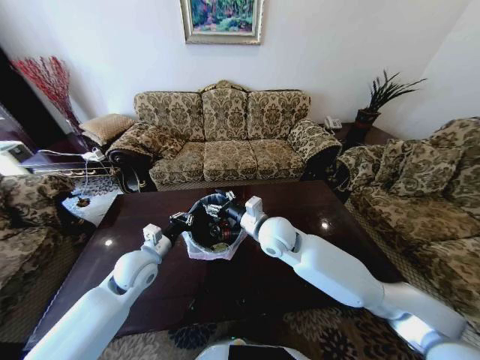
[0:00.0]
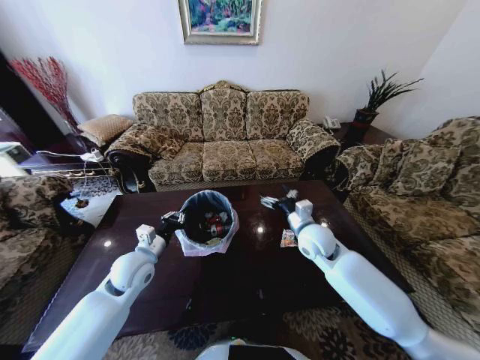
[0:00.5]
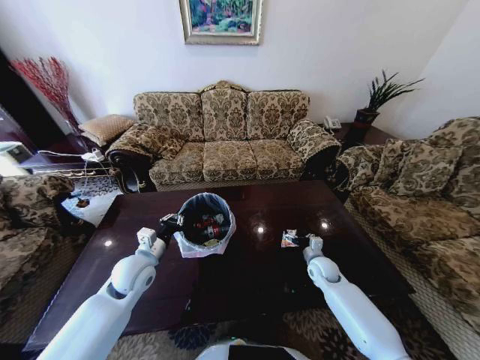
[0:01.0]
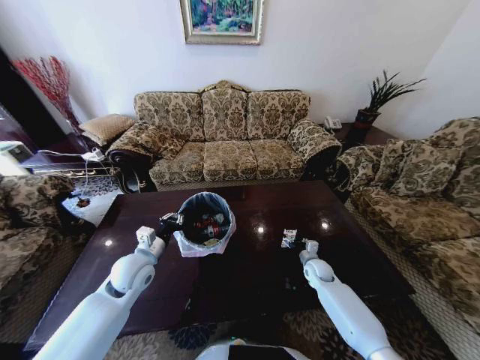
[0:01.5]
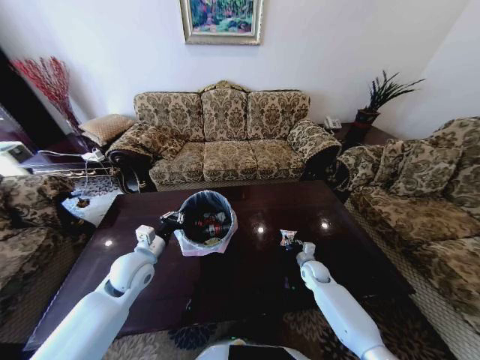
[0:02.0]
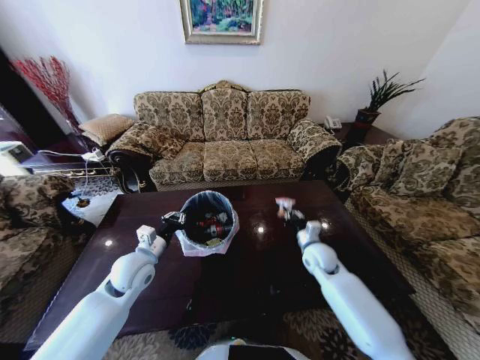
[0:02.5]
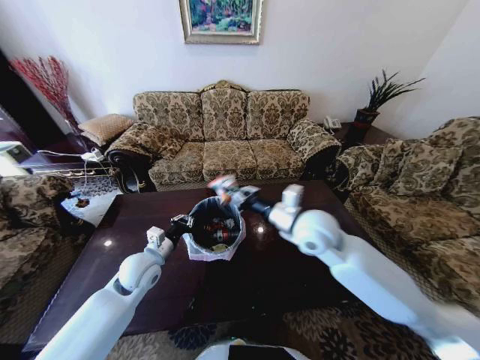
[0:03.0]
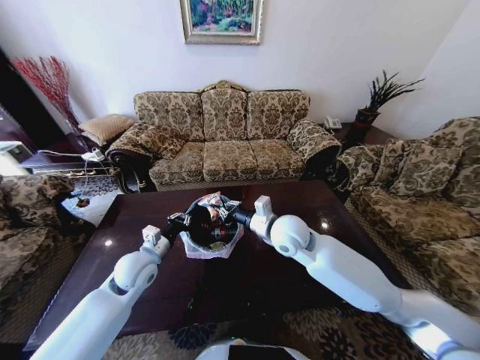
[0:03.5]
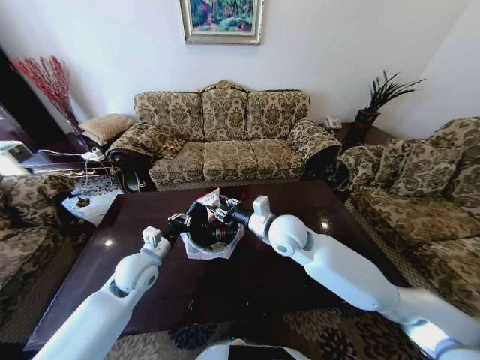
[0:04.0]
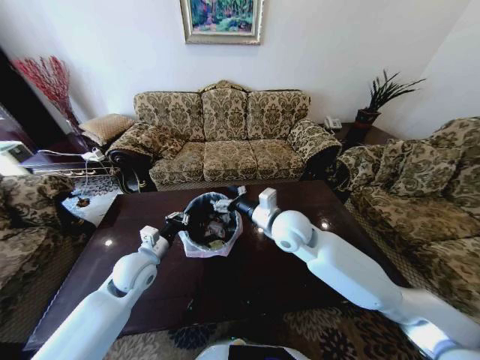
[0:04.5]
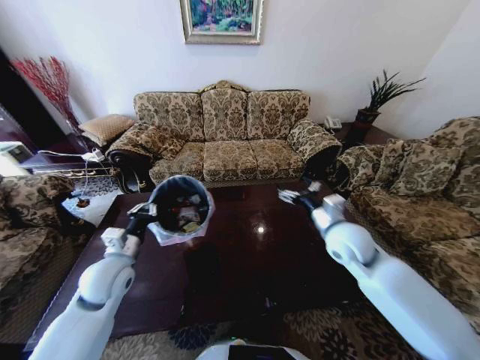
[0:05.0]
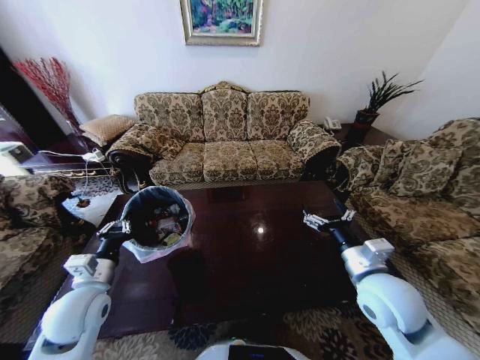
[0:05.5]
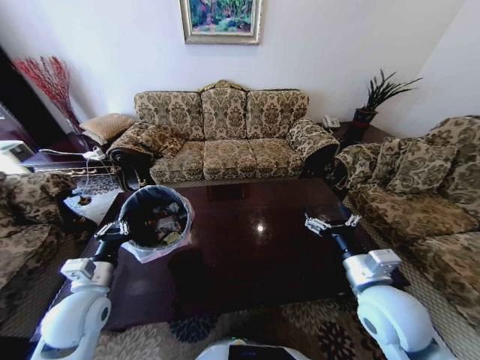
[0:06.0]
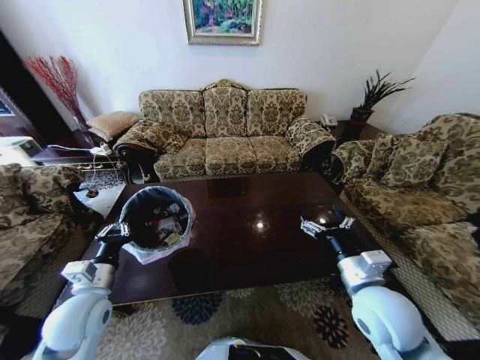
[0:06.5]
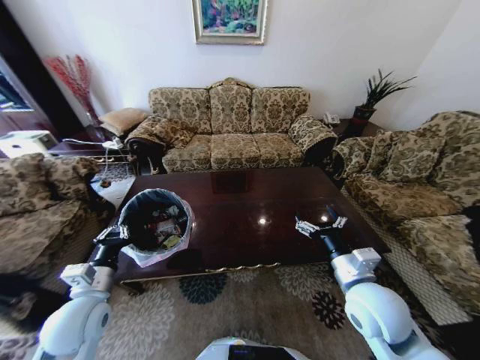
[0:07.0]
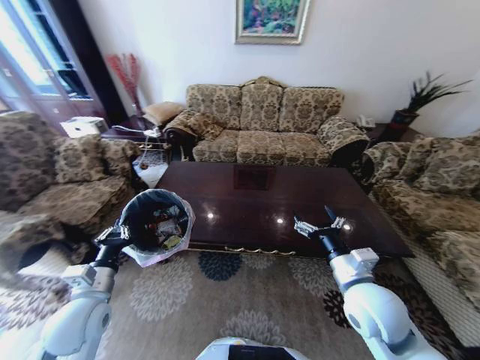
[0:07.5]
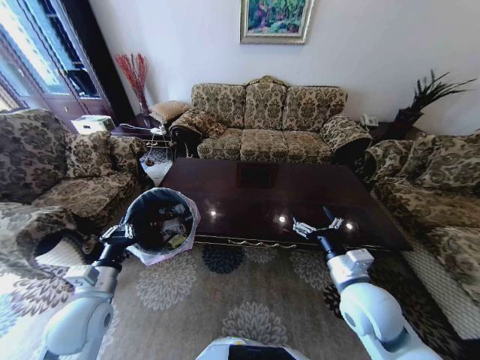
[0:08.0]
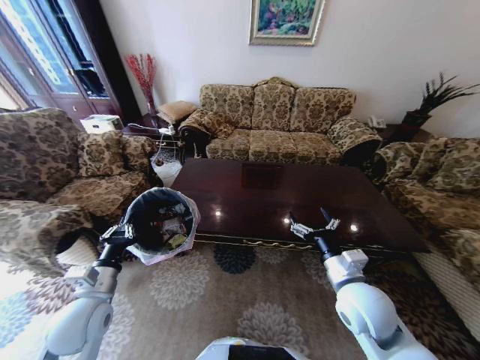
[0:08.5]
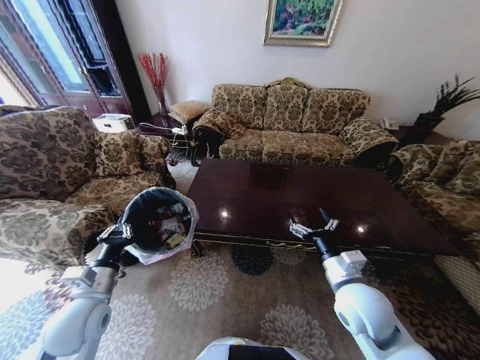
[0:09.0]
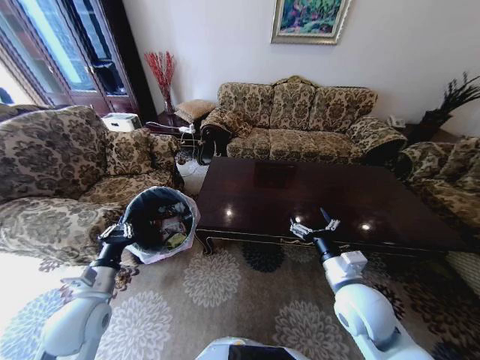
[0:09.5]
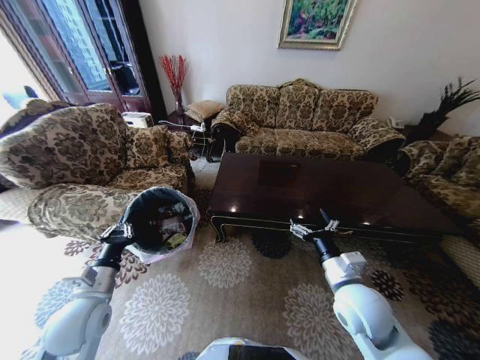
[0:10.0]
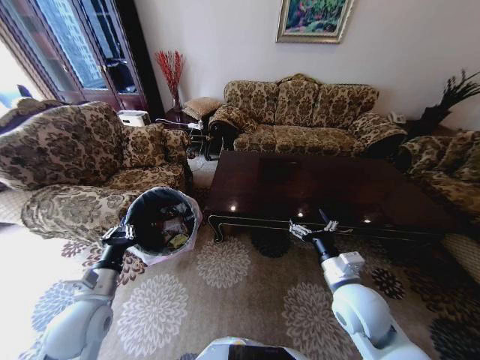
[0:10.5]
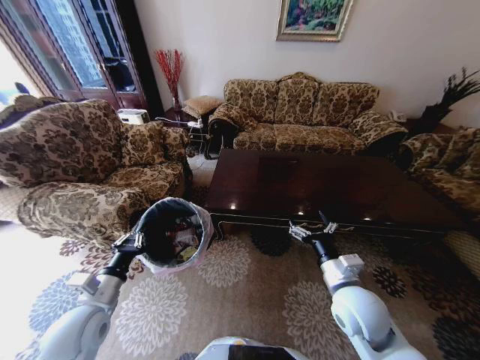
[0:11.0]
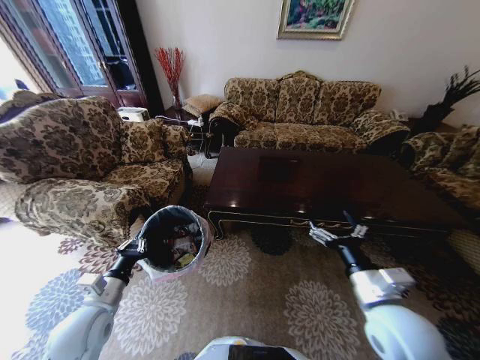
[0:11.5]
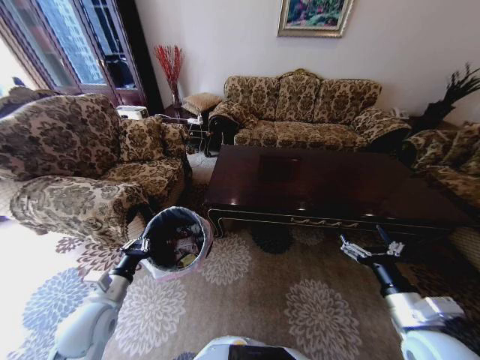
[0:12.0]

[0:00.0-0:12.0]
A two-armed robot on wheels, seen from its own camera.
Task of the whole recording: Move to the front of the table and place the trash on the table into the trash bin.
0:00.0 to 0:02.0: The right gripper moves downward and to the right, about 35 cm, and closes its fingers.
0:02.0 to 0:04.0: The right gripper shifts approximately 35 cm upward and to the left.
0:04.0 to 0:06.0: The right gripper is displaced to the right and backward by approximately 25 cm, and opens. The left gripper goes roughly 10 cm backward and to the left.
0:10.0 to 0:12.0: The right gripper is displaced to the right and backward by roughly 15 cm.

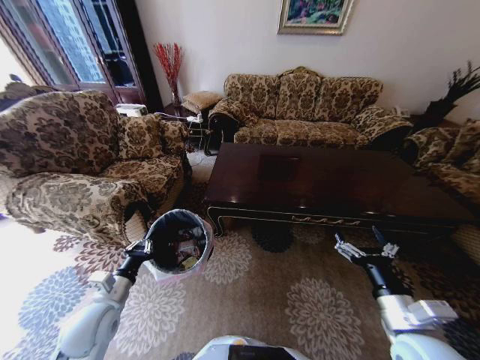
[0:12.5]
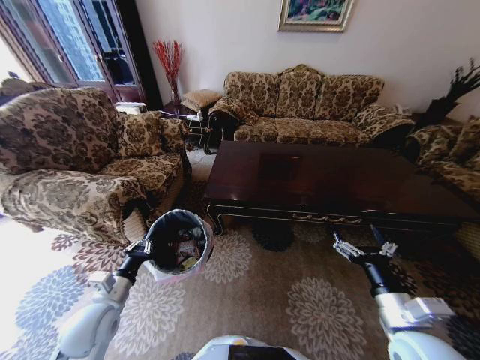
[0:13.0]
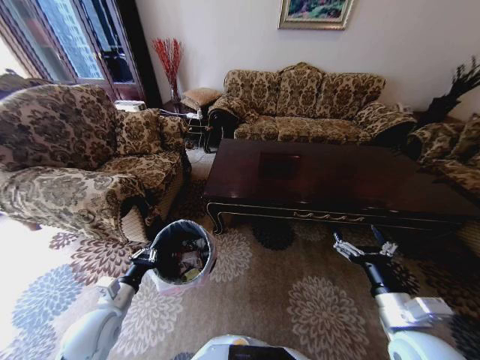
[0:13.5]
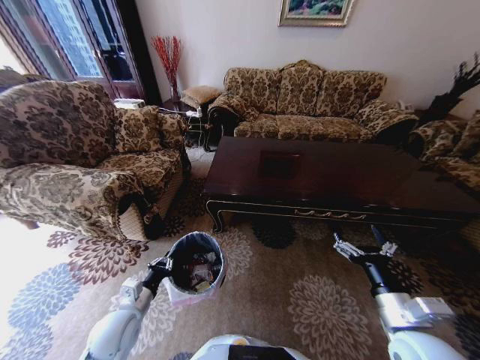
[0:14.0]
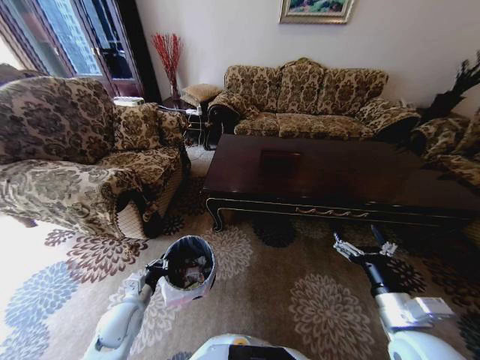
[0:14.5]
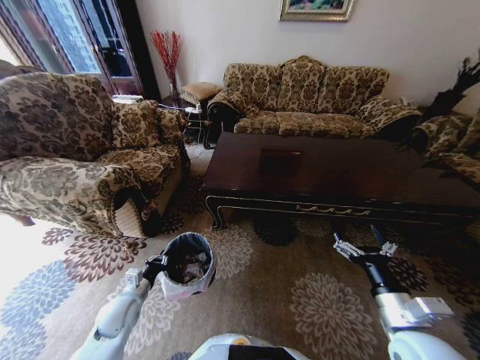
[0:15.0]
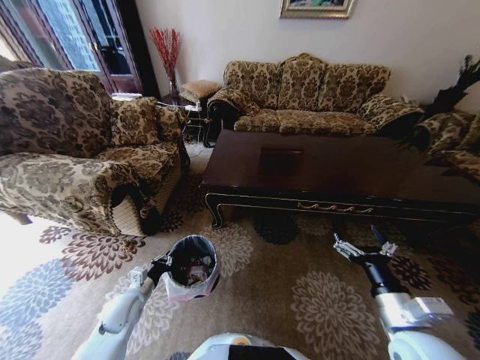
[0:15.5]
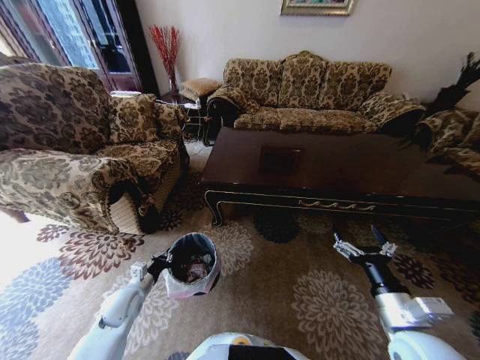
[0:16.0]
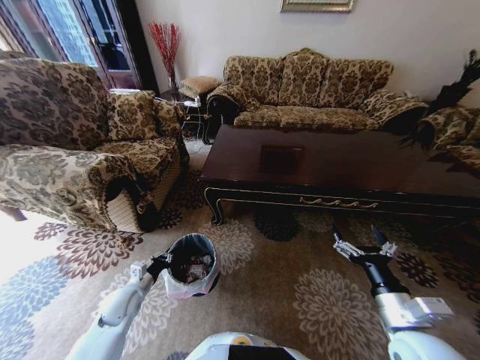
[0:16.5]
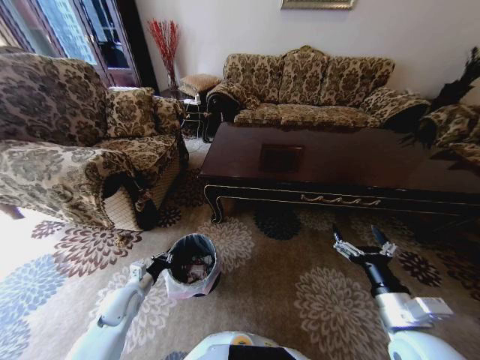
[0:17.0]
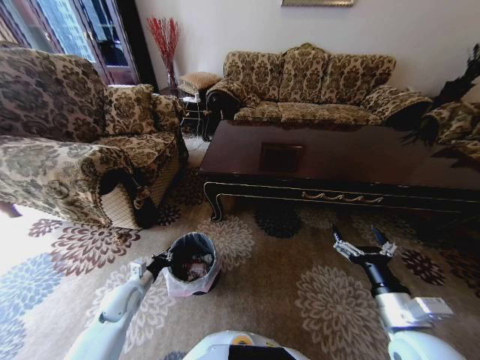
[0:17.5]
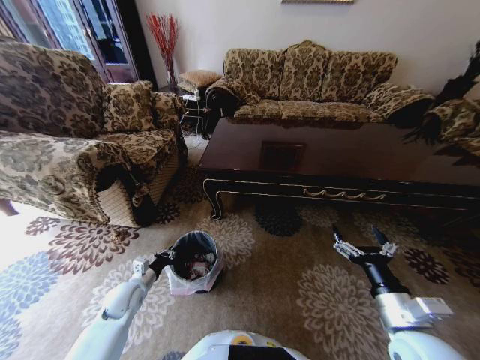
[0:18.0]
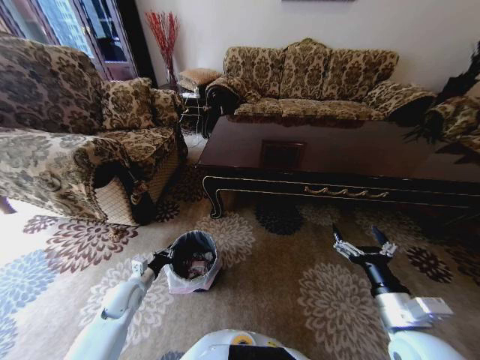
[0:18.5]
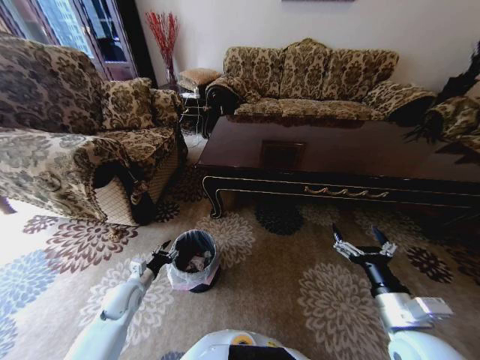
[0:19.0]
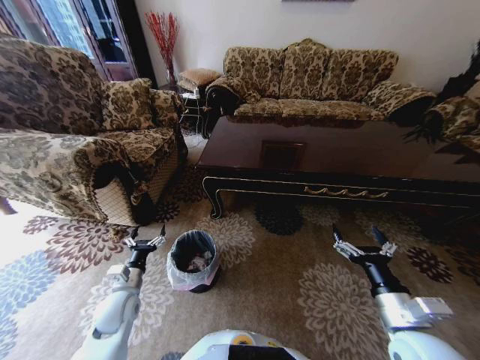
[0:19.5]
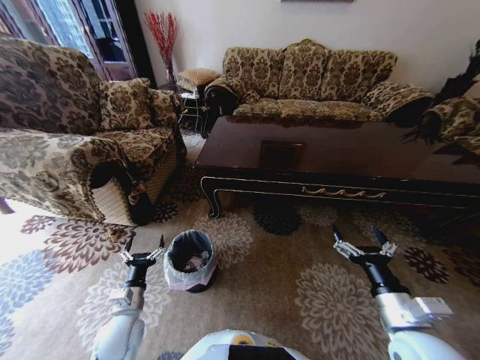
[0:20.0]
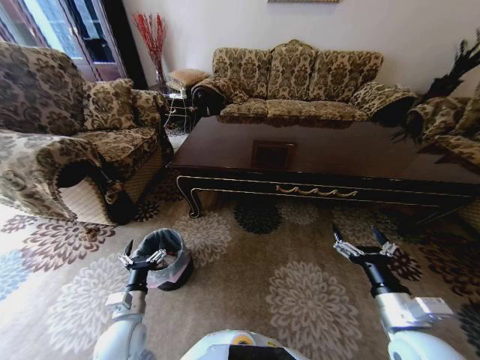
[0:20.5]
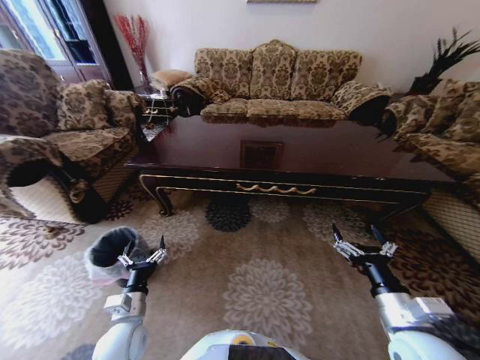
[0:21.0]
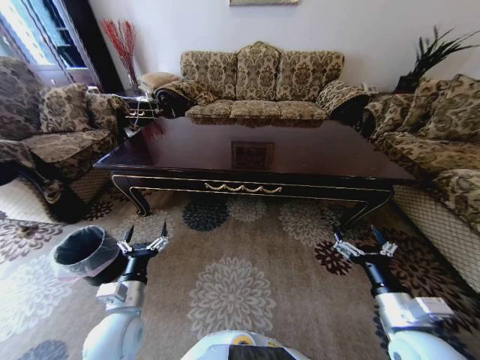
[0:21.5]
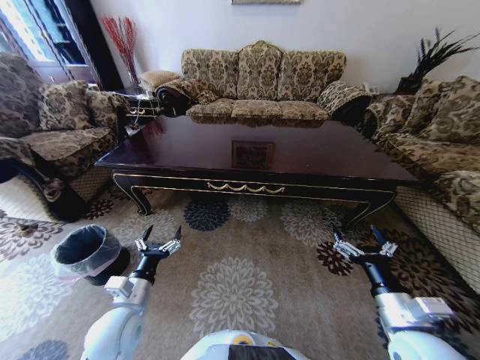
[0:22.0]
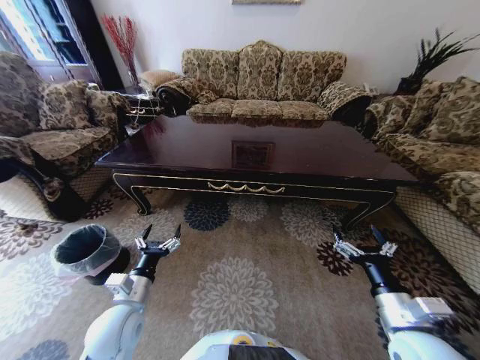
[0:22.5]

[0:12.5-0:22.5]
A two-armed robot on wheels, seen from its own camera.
Task of the whole recording: Move to the front of the table and place the trash on the table into the trash bin.
0:12.5 to 0:14.5: The left gripper is displaced downward by about 10 cm.
0:14.5 to 0:16.5: The left gripper moves some 5 cm.
0:18.5 to 0:20.5: The left gripper travels backward and to the right by approximately 10 cm, and opens its fingers.
0:20.5 to 0:22.5: The left gripper shifts some 5 cm upward.

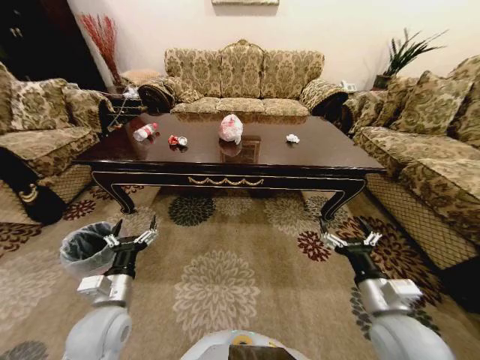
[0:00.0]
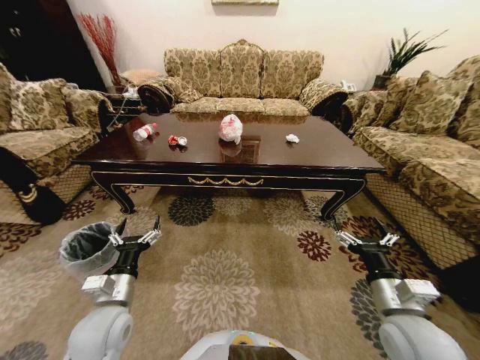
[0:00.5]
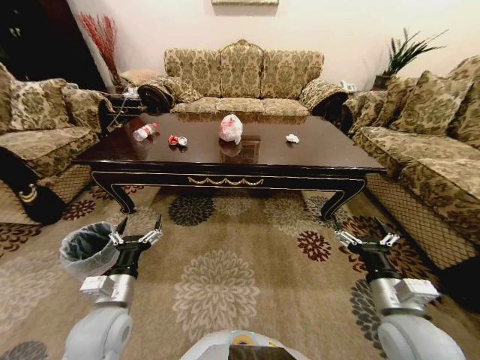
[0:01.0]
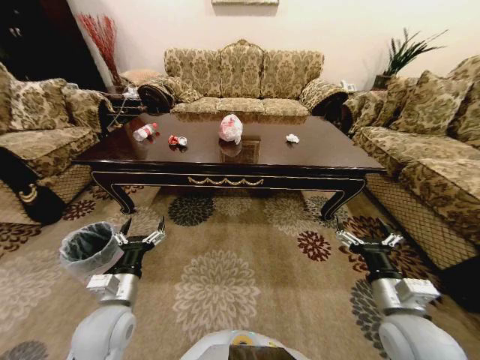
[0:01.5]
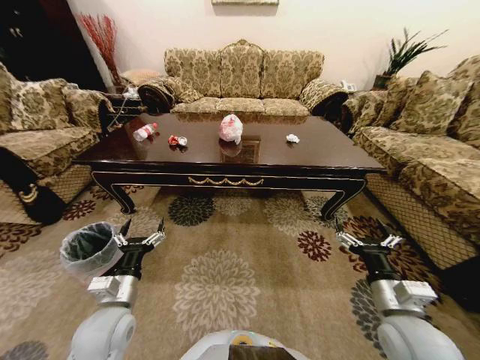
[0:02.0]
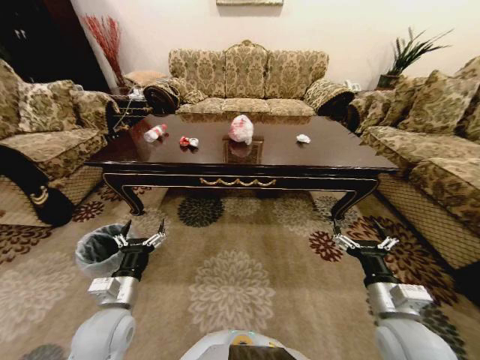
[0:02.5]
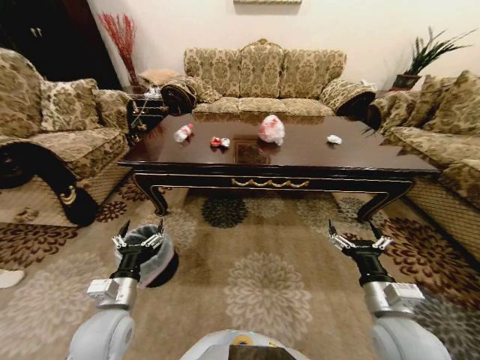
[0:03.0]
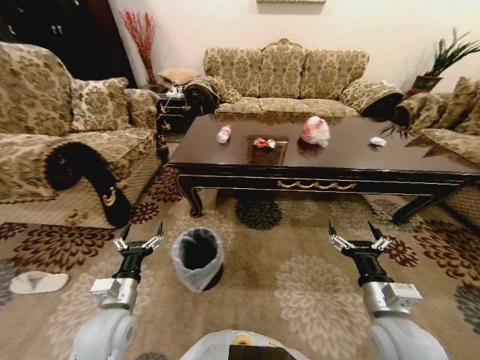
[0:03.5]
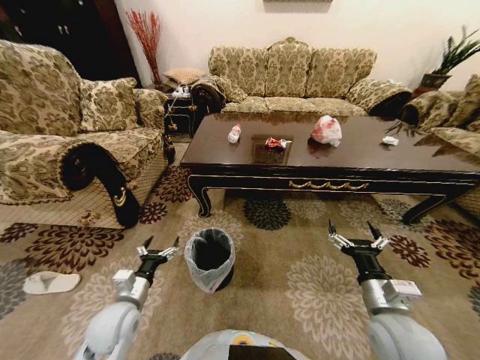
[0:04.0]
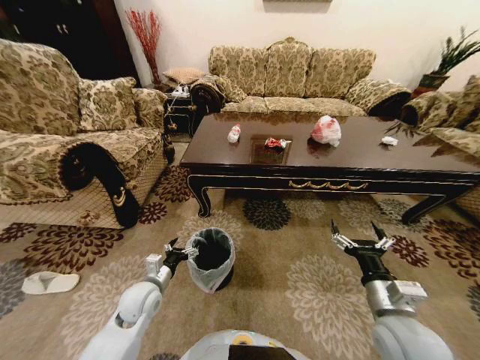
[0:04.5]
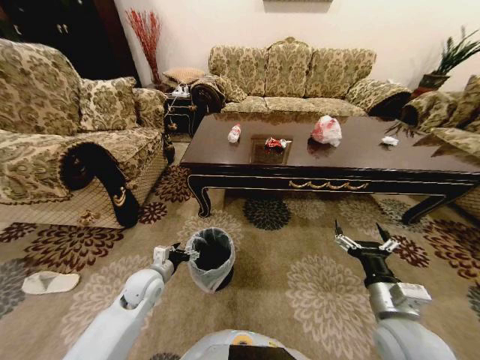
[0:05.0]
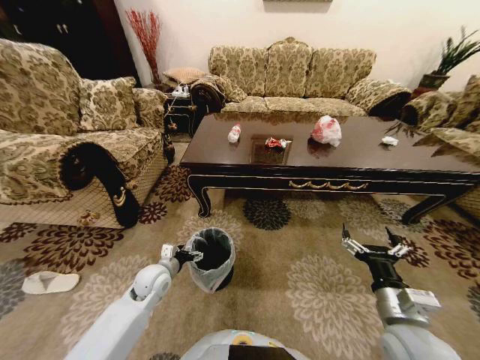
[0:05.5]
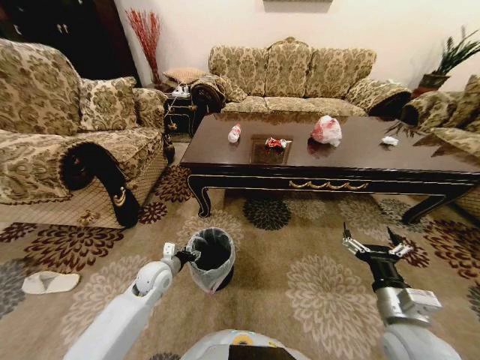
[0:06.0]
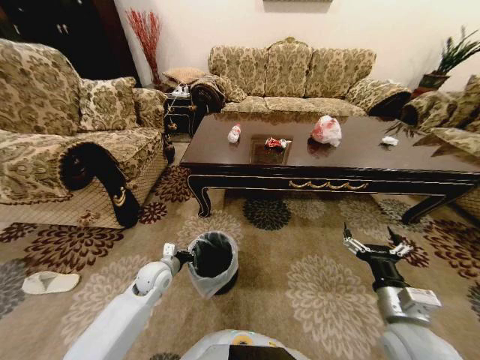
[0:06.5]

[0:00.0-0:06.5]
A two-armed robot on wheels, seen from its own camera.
Task of the whole recording: Move to the front of the table and place the trash on the table into the trash bin.
0:02.0 to 0:04.5: The left gripper moves forward and downward, some 10 cm.
0:04.5 to 0:06.5: The left gripper shifts about 5 cm forward, and closes its fingers.
